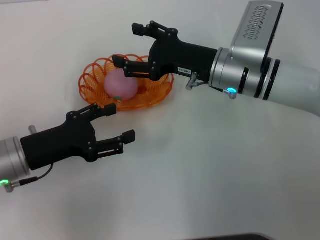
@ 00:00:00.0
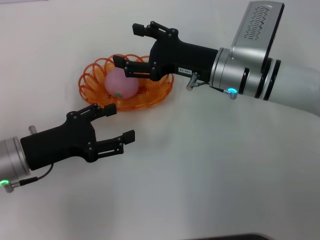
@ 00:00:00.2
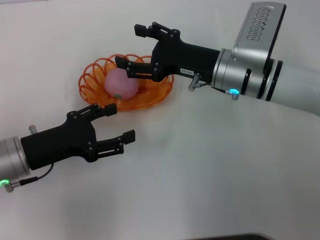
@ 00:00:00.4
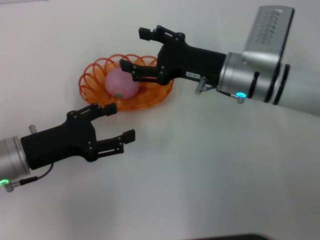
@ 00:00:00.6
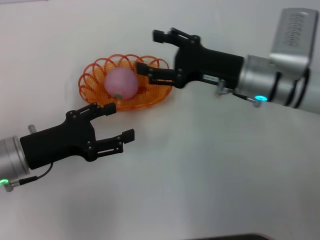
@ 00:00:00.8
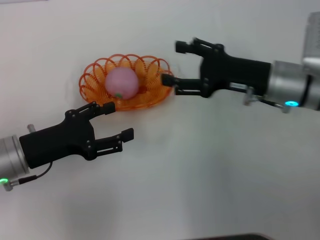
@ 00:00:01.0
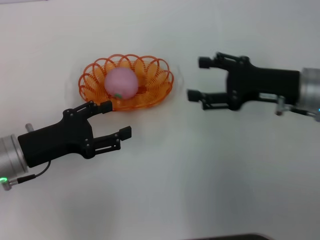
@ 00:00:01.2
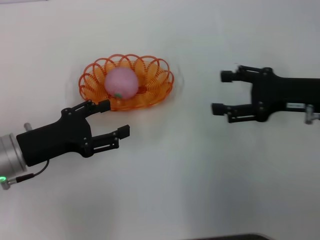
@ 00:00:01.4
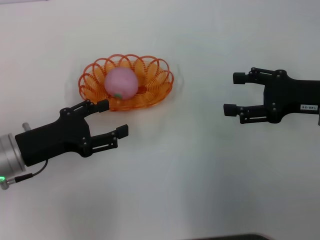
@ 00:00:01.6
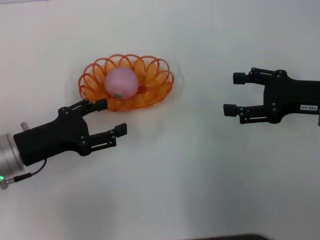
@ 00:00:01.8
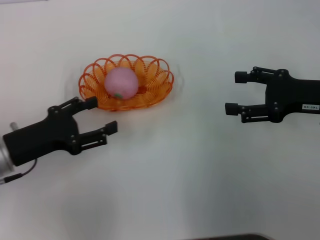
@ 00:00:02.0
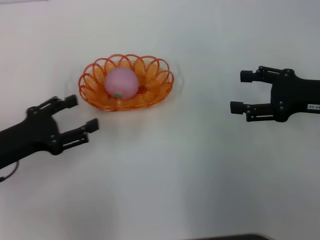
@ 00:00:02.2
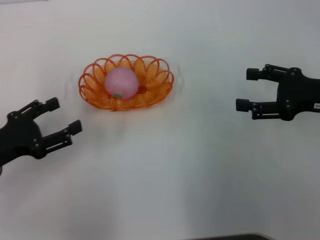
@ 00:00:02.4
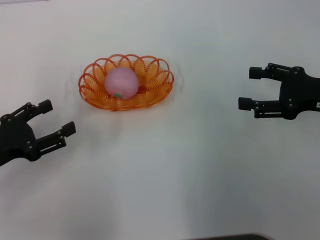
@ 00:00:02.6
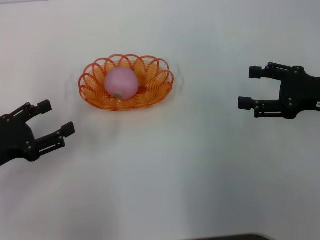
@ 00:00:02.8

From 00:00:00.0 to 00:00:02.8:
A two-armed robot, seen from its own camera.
From 00:00:00.0 to 00:00:01.4: The right gripper moves to the right and backward, approximately 15 cm.
From 00:00:01.4 to 00:00:02.8: The left gripper goes approximately 5 cm to the left.

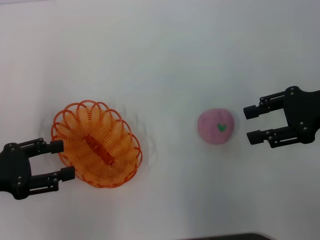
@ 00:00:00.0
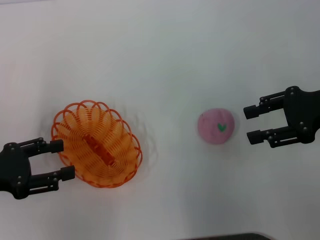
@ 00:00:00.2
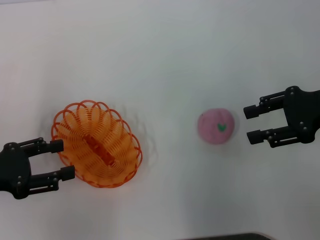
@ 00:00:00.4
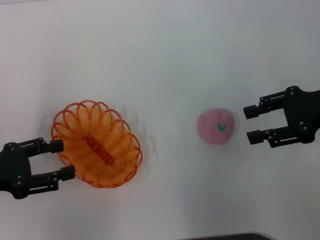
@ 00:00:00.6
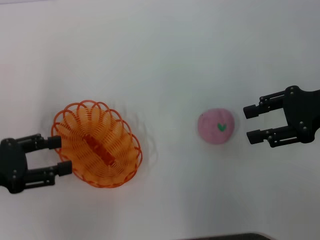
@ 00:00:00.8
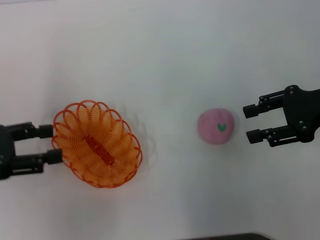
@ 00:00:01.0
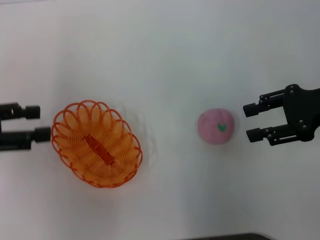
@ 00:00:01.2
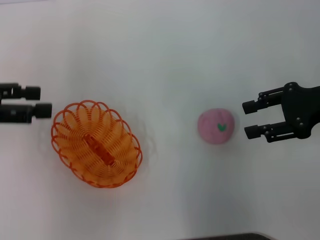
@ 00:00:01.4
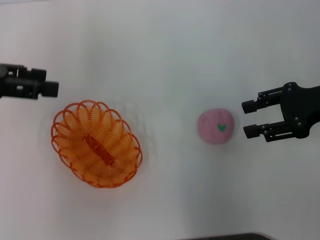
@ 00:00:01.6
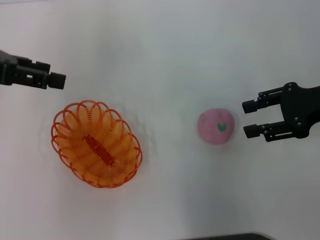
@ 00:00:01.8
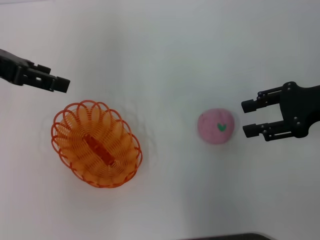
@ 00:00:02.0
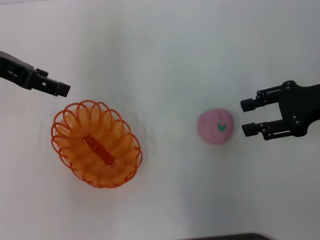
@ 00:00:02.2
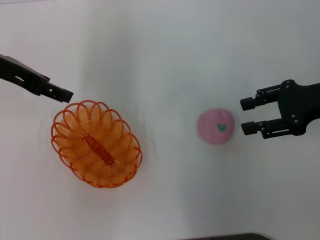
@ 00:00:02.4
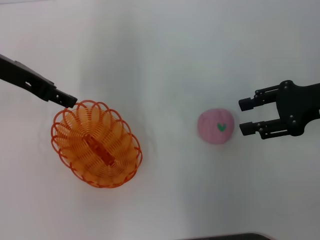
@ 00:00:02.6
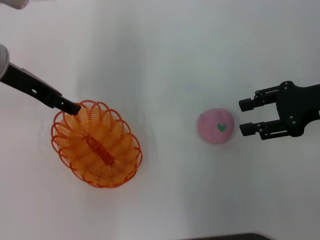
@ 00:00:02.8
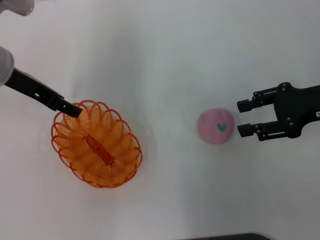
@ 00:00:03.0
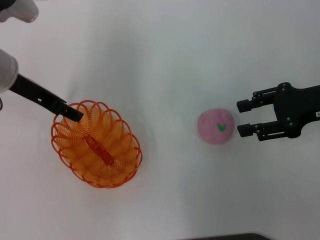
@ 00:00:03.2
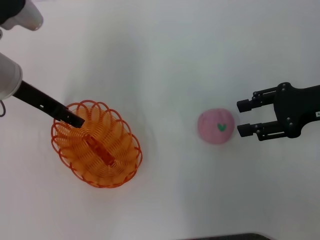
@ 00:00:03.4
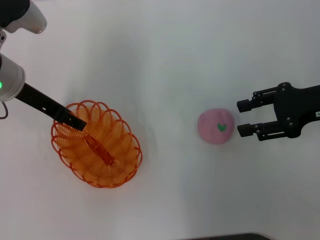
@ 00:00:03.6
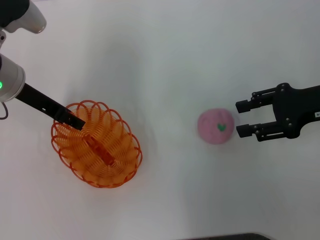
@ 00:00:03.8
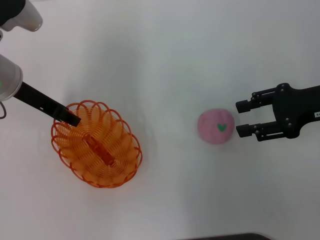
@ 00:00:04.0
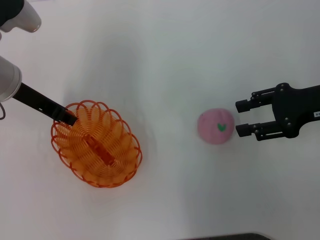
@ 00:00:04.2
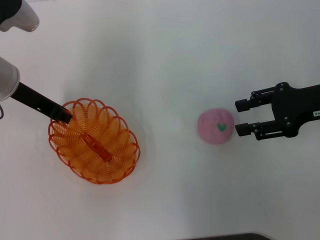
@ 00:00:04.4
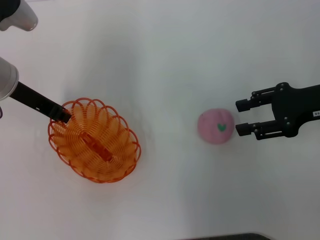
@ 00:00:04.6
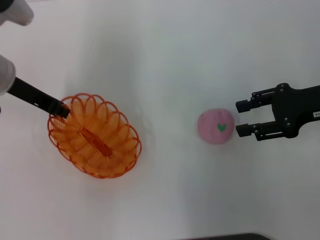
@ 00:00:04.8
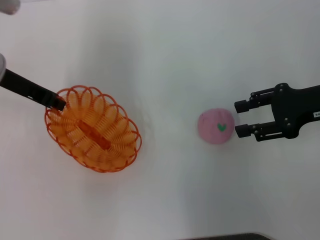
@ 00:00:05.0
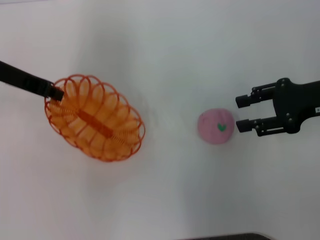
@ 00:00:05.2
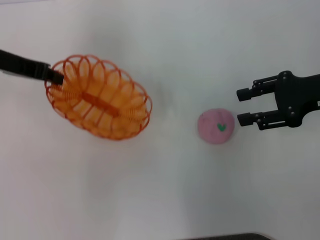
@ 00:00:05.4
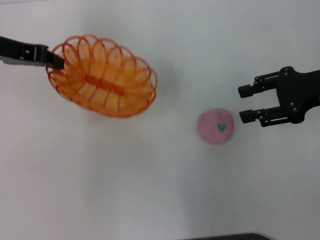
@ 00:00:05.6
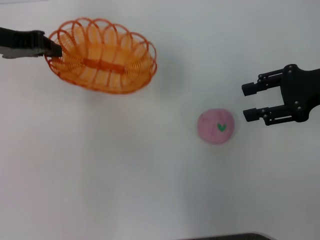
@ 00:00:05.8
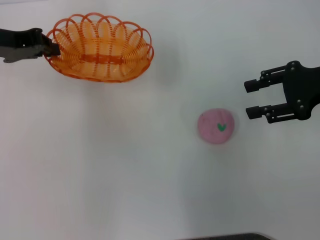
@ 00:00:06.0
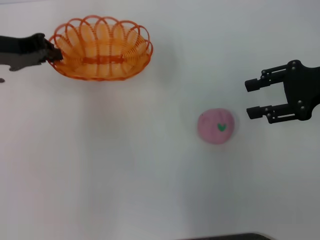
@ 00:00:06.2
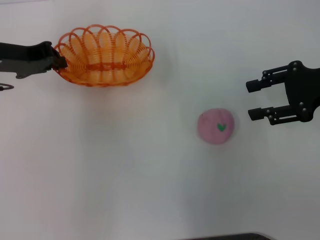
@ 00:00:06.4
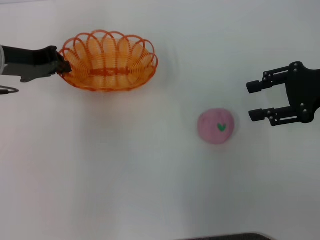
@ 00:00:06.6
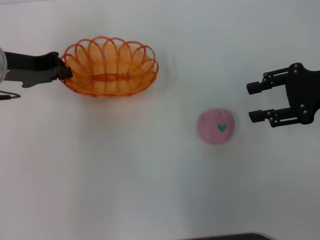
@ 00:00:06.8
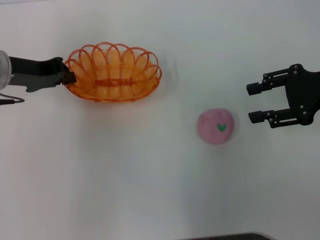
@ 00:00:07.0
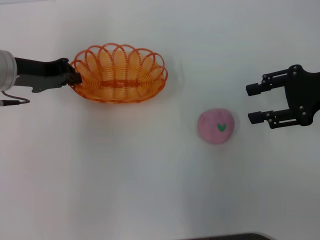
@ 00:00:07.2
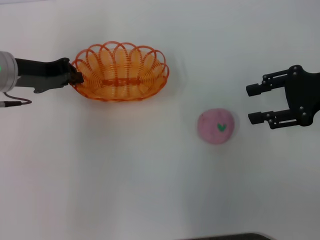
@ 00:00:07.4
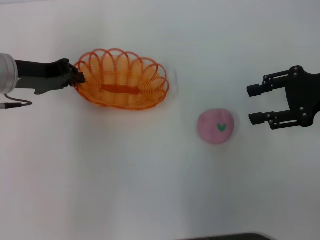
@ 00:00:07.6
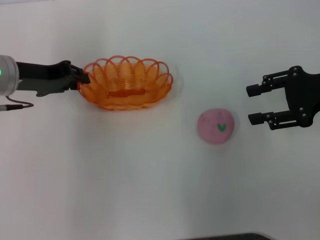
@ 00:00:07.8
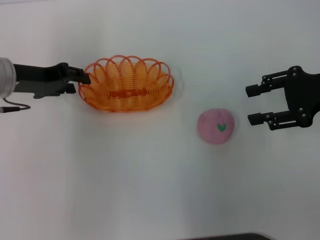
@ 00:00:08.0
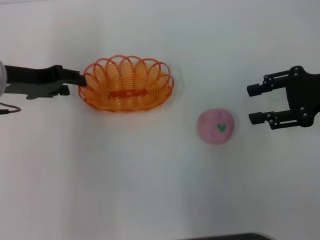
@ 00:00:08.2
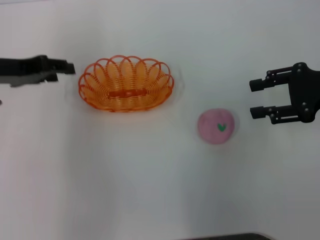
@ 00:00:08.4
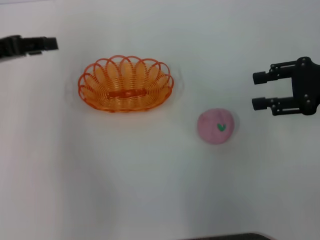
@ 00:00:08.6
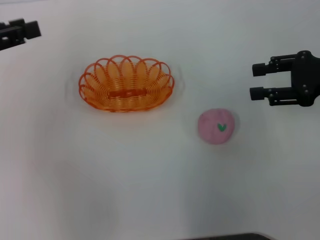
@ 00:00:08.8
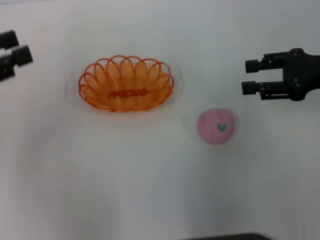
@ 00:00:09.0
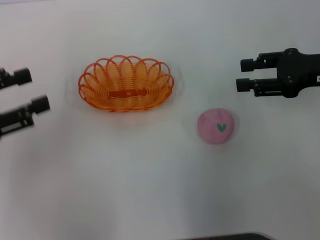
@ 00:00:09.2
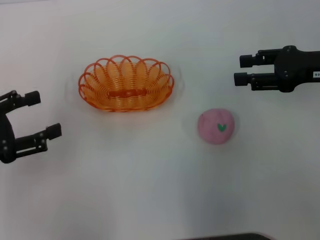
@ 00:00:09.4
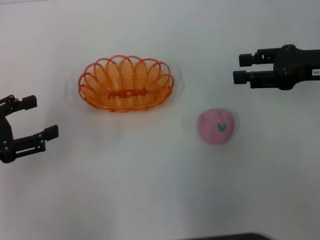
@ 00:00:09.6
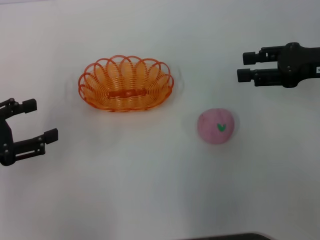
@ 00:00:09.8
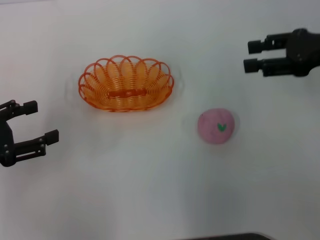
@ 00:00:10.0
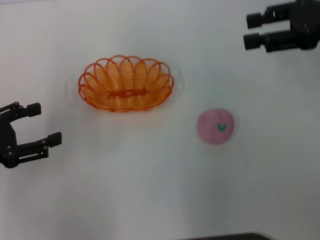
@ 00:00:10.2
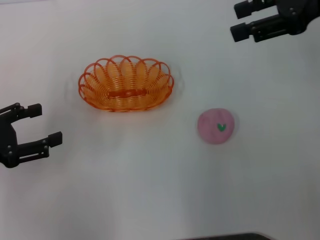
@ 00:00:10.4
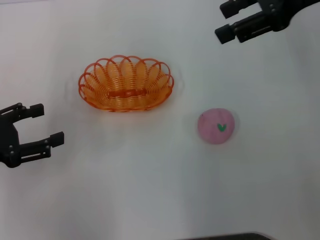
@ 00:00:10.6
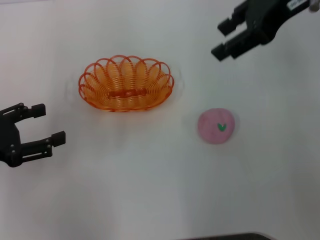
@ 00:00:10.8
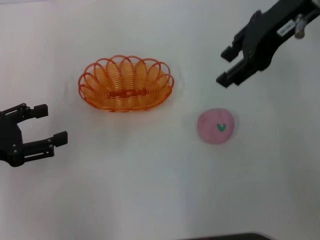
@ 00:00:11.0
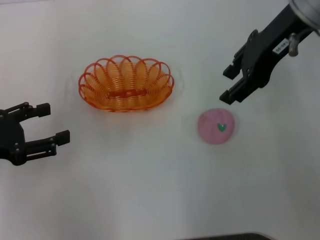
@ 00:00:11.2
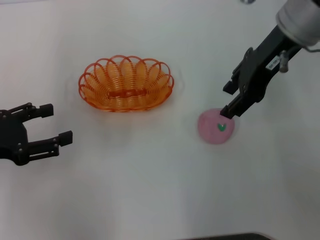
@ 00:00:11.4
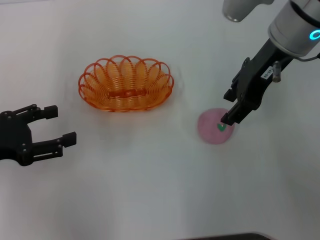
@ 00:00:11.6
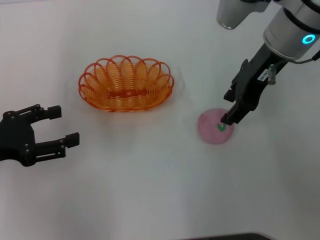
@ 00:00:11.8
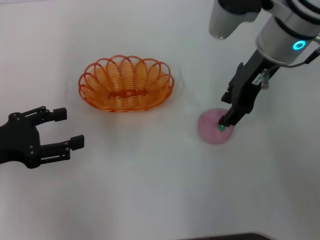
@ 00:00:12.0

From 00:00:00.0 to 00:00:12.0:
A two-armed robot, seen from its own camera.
Step, from 00:00:00.0 to 00:00:05.2: Pick up the basket with the left gripper.
Step, from 00:00:05.4 to 00:00:09.0: Place the basket in the center of view with the left gripper.
From 00:00:00.0 to 00:00:01.6: The left gripper heads upward and forward, covering some 15 cm.
From 00:00:01.6 to 00:00:03.0: The left gripper goes roughly 10 cm to the right, forward and downward.
From 00:00:03.0 to 00:00:04.4: The left gripper closes.
From 00:00:04.4 to 00:00:06.0: The left gripper moves roughly 5 cm, and closes.
From 00:00:06.0 to 00:00:07.6: The left gripper is displaced downward by roughly 5 cm.
From 00:00:07.6 to 00:00:09.0: The left gripper is displaced backward, to the left and upward by roughly 15 cm, and opens its fingers.
From 00:00:09.0 to 00:00:10.4: The left gripper heads downward, covering some 10 cm. The right gripper moves upward, roughly 10 cm.
From 00:00:10.4 to 00:00:12.0: The right gripper goes roughly 15 cm to the left and downward.

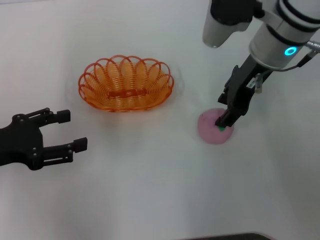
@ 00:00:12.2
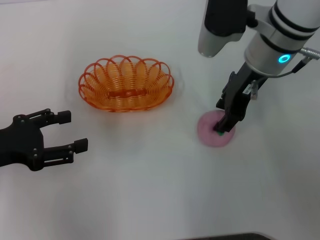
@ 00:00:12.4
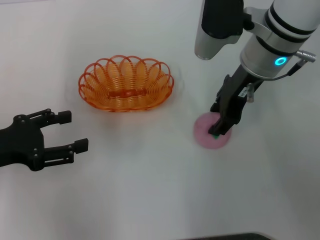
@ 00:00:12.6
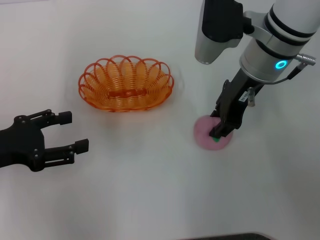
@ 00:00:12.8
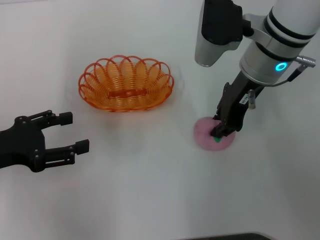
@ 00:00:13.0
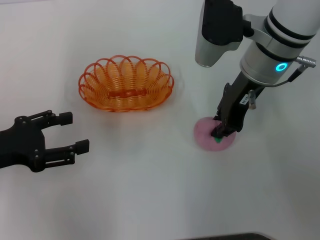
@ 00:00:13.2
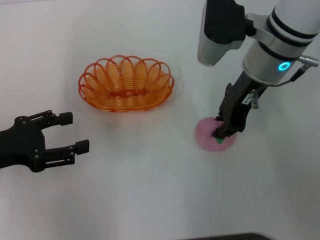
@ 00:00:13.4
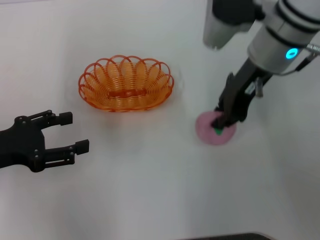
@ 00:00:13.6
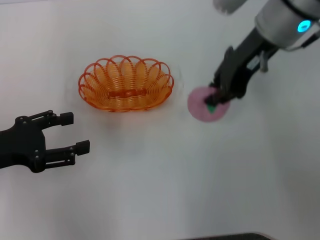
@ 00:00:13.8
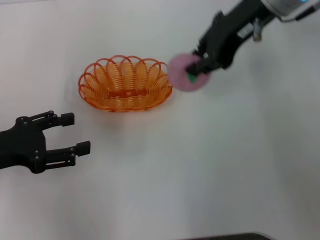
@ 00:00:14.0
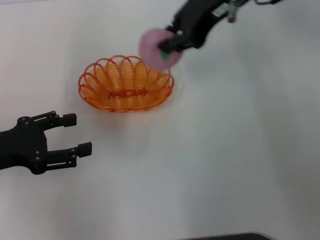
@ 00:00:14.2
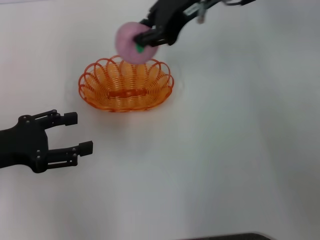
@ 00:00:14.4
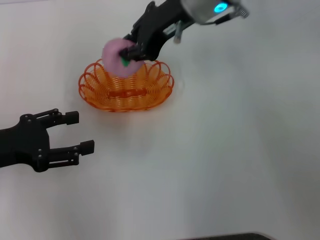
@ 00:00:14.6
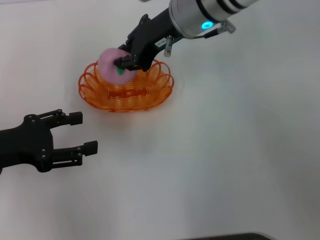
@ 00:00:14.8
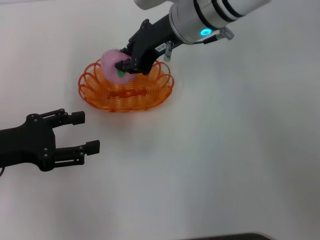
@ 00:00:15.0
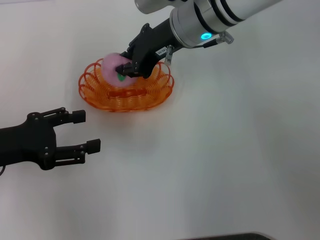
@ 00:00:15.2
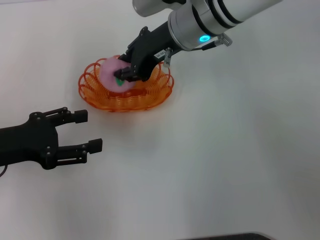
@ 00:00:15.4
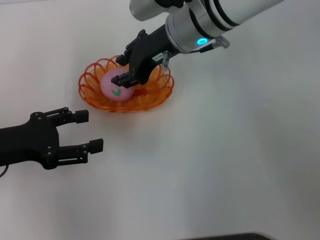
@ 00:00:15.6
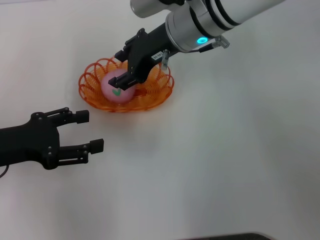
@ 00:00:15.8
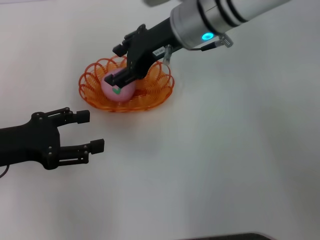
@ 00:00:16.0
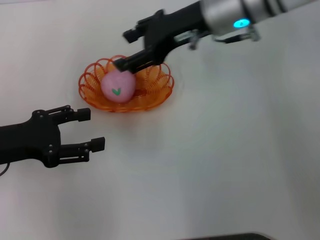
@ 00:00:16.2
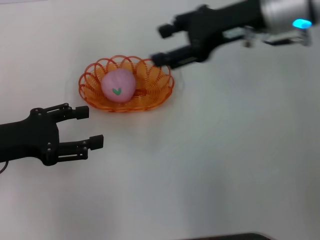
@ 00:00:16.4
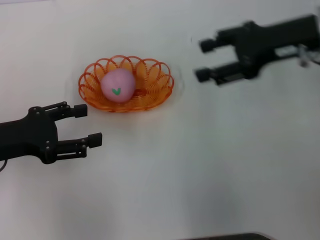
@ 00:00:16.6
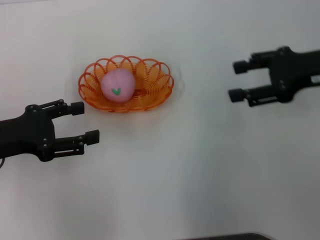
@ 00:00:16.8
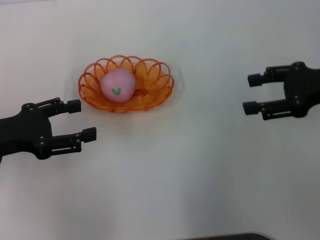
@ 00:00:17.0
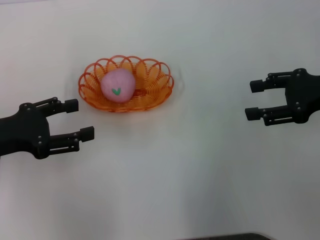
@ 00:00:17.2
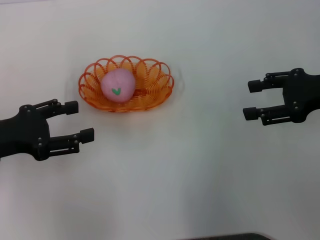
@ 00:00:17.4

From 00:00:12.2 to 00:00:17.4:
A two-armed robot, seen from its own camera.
Step, from 00:00:14.2 to 00:00:16.6: Place the peach into the basket with the right gripper.
From 00:00:12.2 to 00:00:14.0: The right gripper travels upward by some 10 cm, and closes up.
From 00:00:14.0 to 00:00:15.6: The right gripper travels to the left and downward by some 10 cm.
From 00:00:15.6 to 00:00:17.4: The right gripper heads to the right and backward, covering approximately 25 cm, and opens its fingers.
